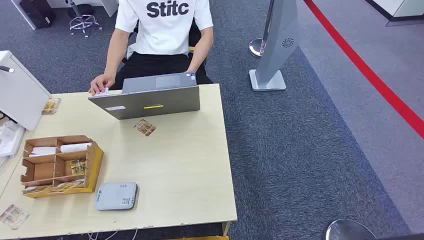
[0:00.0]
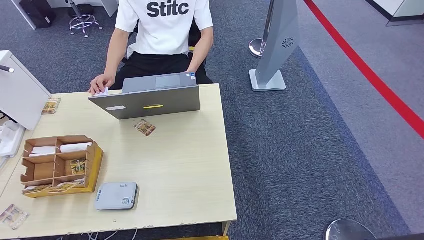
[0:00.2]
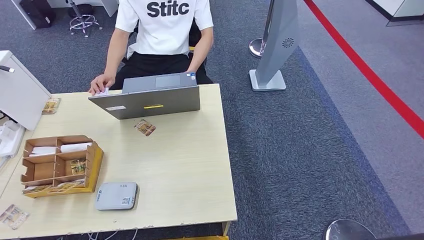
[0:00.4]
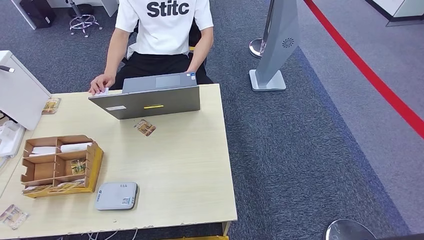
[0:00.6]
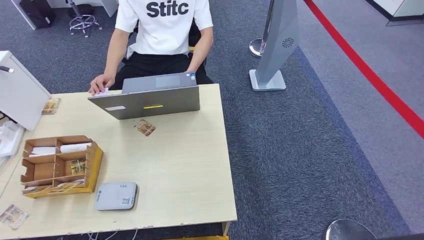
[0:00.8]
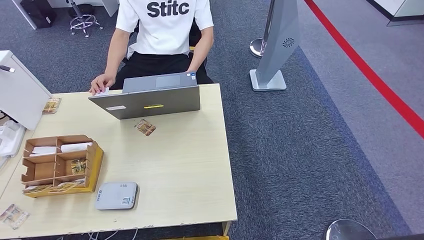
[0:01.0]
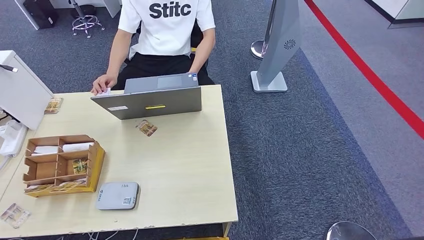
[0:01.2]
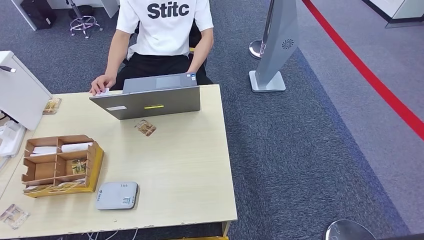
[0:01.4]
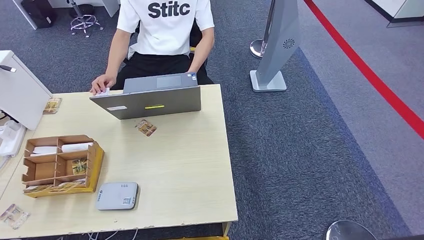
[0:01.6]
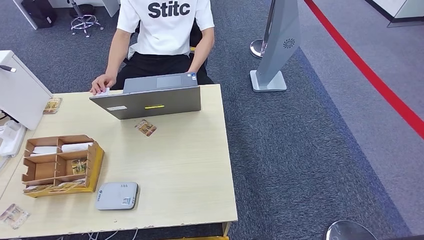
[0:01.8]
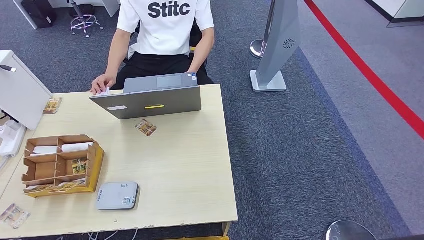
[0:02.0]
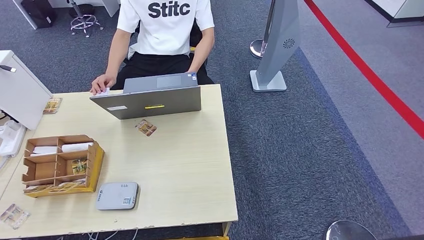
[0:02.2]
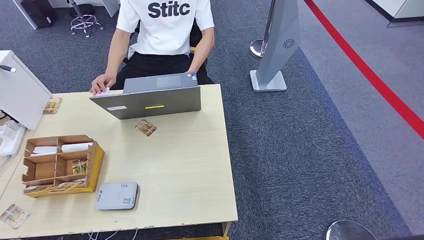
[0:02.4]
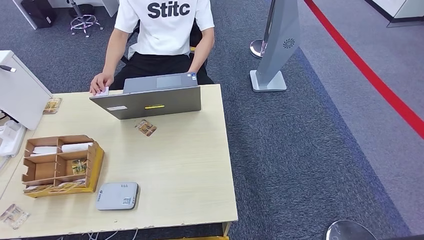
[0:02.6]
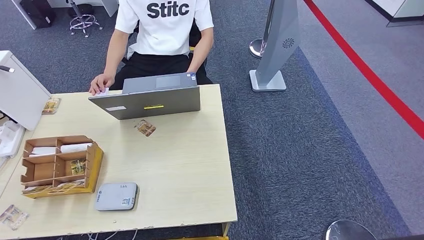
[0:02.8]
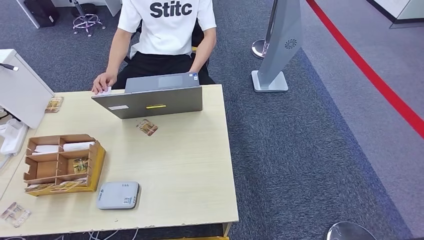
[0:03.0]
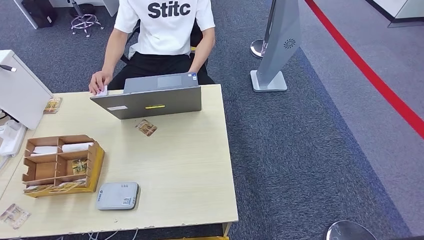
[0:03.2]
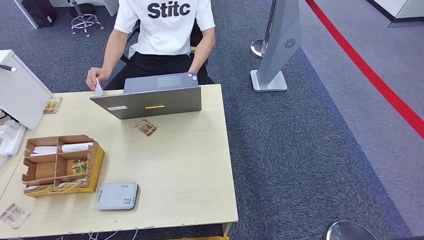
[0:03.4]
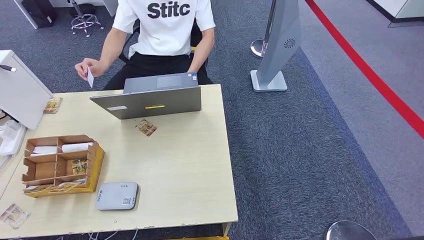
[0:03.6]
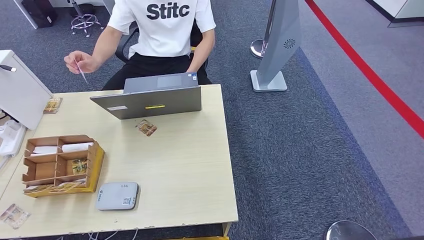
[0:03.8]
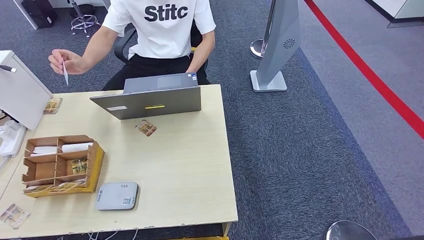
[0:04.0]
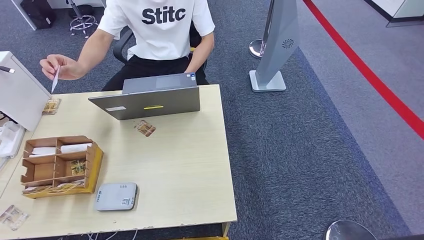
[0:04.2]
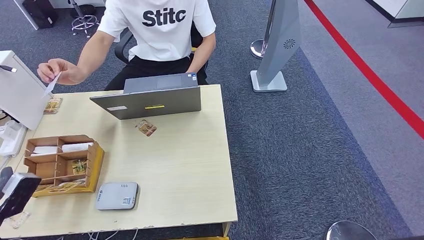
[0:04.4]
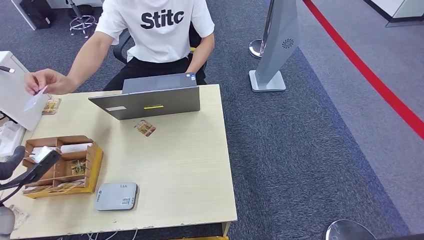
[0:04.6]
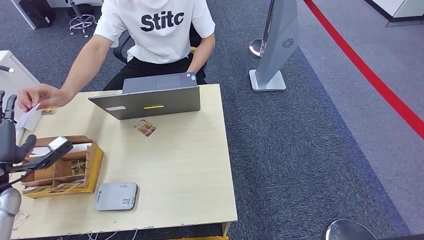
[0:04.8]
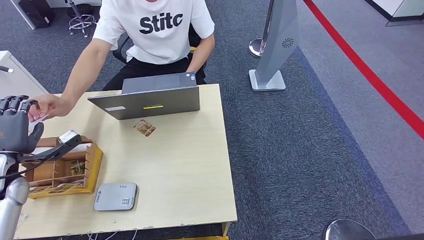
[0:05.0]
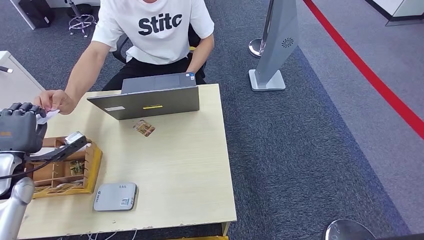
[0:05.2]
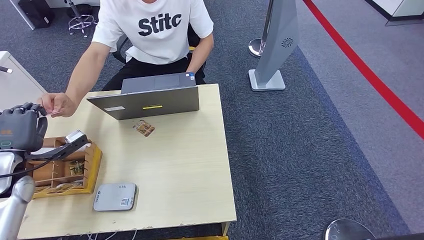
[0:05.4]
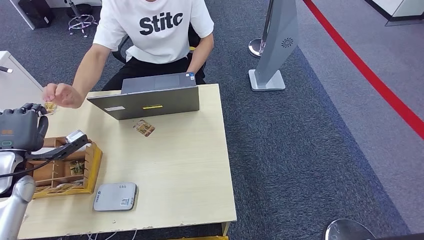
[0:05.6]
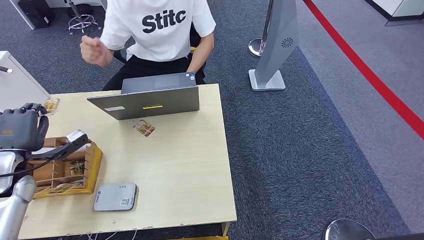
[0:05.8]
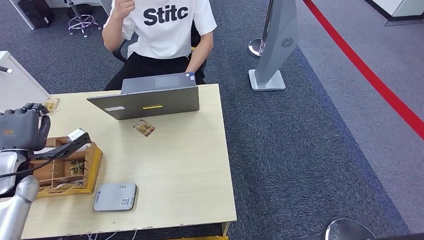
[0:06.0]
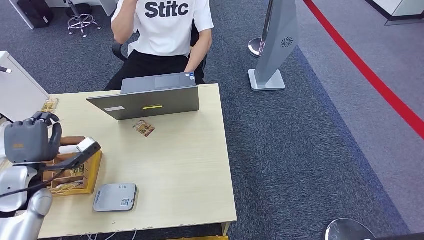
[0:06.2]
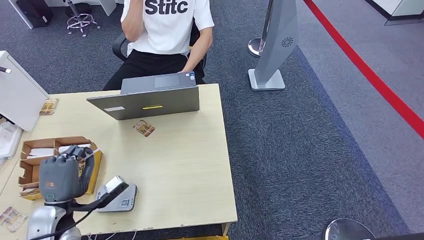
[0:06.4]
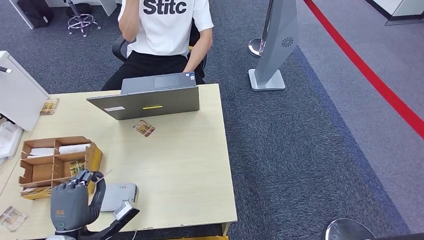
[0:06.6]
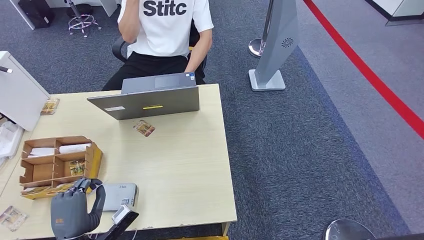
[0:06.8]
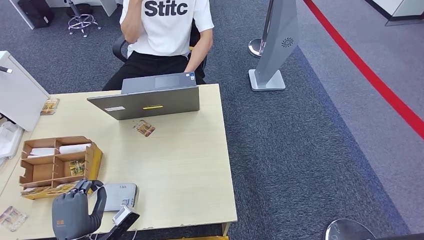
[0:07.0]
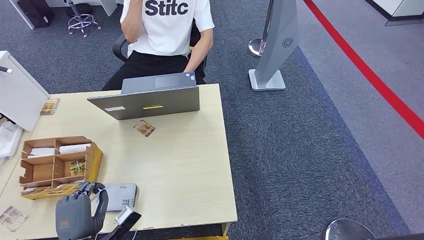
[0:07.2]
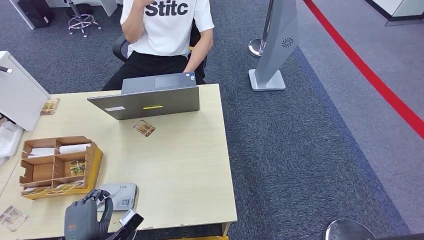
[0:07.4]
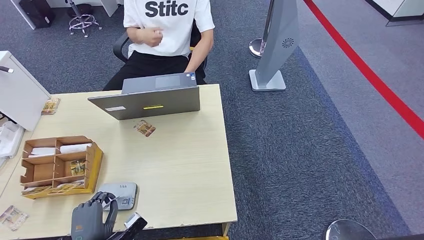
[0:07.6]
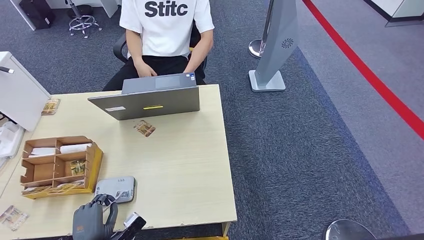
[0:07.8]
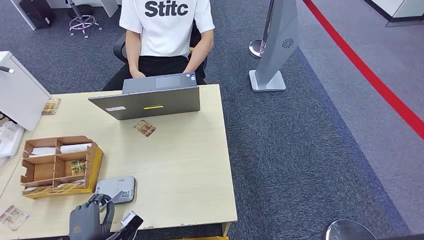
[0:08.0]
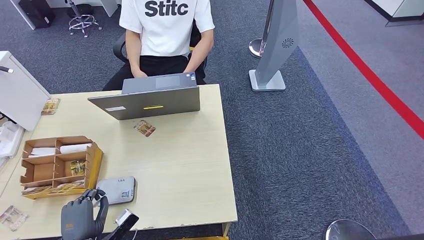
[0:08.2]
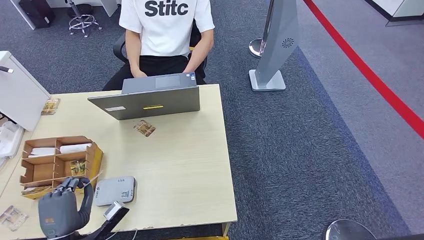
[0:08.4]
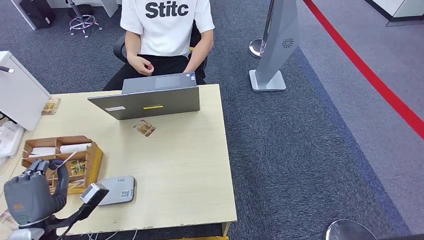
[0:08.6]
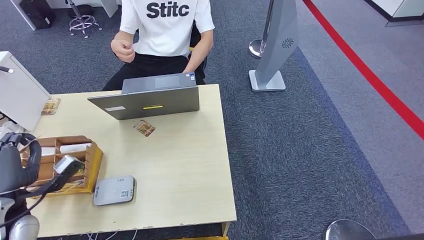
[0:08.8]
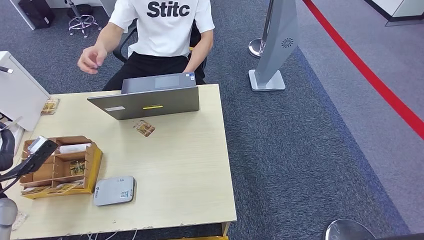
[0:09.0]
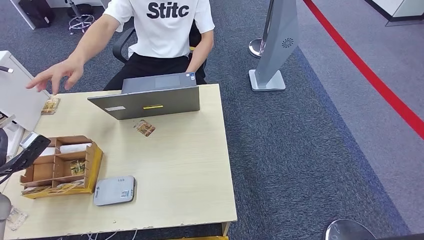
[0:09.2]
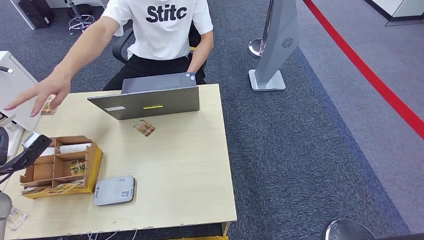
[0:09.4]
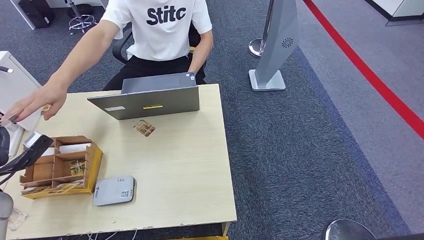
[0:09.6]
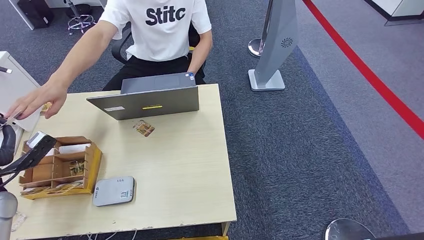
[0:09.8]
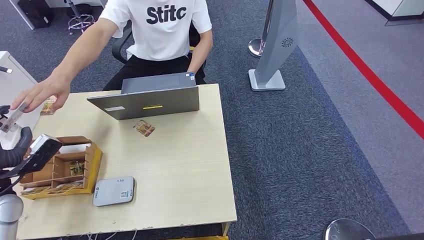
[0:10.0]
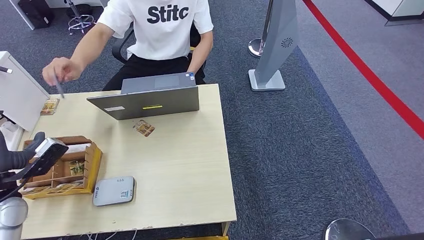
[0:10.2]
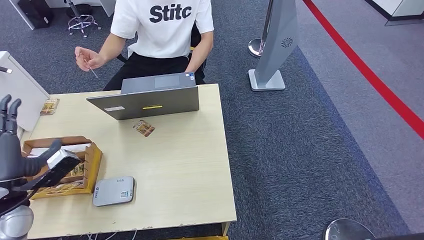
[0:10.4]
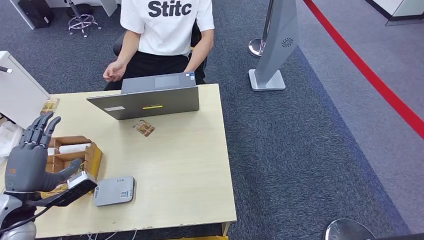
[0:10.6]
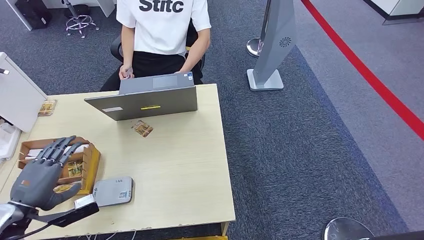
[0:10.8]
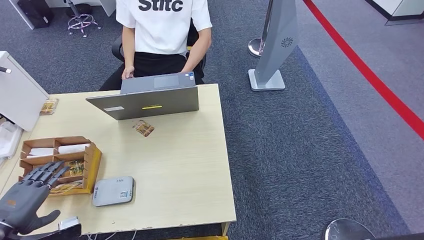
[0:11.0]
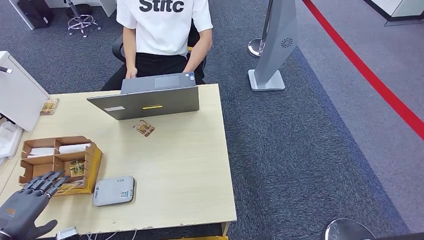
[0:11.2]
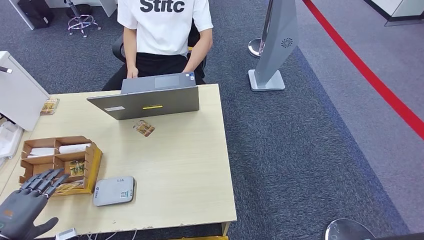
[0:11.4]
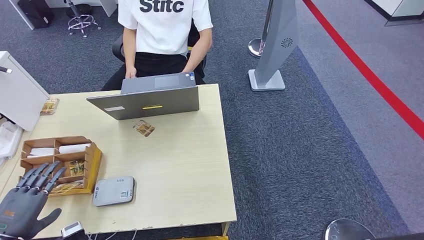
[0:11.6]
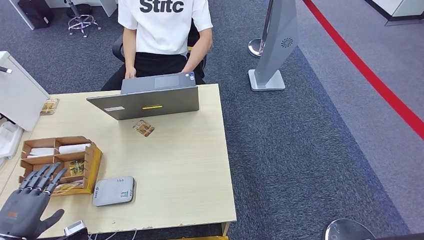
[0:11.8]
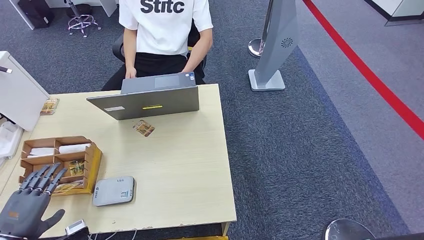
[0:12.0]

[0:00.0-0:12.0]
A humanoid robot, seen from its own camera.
Step, 0:00.0 to 0:06.6: Take the ID card from the person's hand.
Step, 0:07.0 to 0:07.8: Place the ID card on the card reader.
Step, 0:08.0 to 0:10.0: Hand the ID card to the person.
0:01.6 to 0:03.0: The left hand goes some 15 cm to the left and upward.
0:03.0 to 0:04.4: The left hand shifts roughly 30 cm upward and forward.
0:04.4 to 0:06.0: The left hand goes roughly 15 cm forward.
0:06.0 to 0:07.6: The left hand travels backward, downward and to the right by roughly 30 cm.
0:07.6 to 0:09.0: The left hand is displaced upward, to the left and forward by about 25 cm.
0:09.0 to 0:10.4: The left hand moves to the right, roughly 5 cm.
0:10.4 to 0:12.0: The left hand is displaced backward and downward by approximately 10 cm.

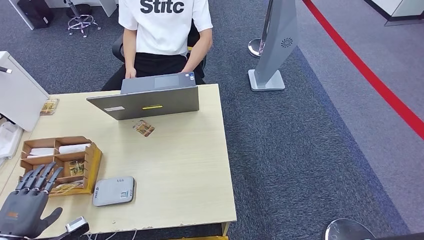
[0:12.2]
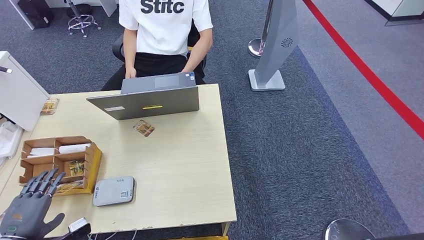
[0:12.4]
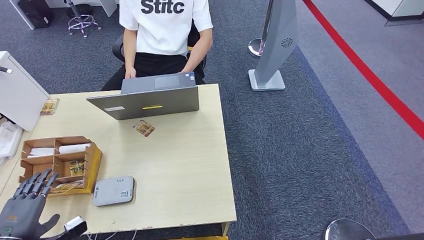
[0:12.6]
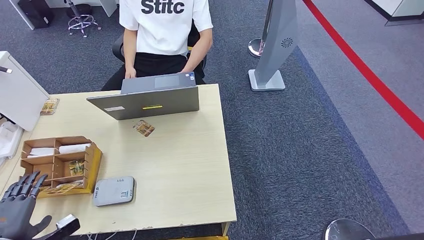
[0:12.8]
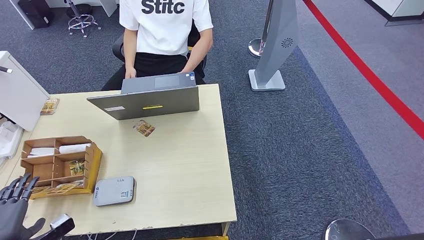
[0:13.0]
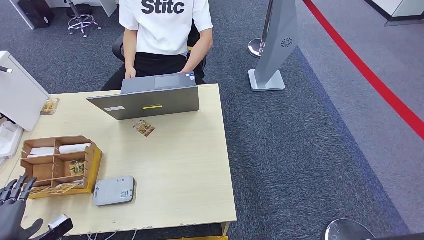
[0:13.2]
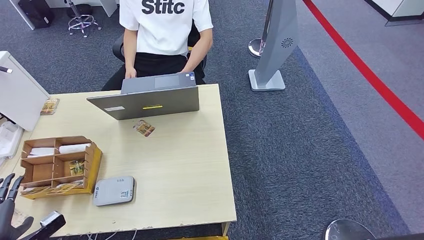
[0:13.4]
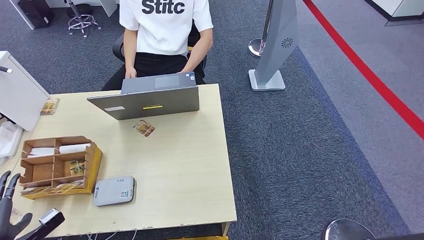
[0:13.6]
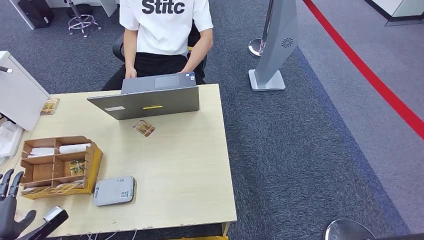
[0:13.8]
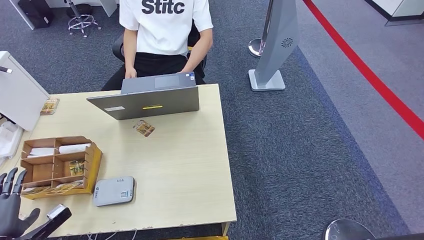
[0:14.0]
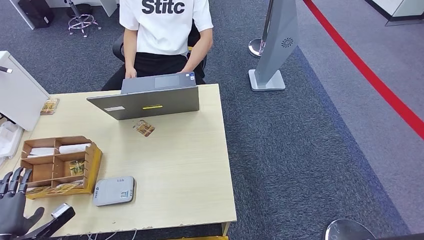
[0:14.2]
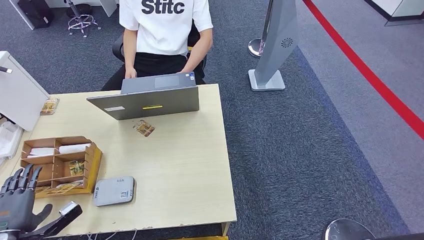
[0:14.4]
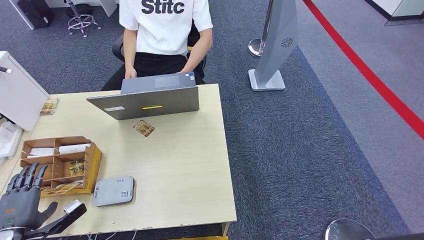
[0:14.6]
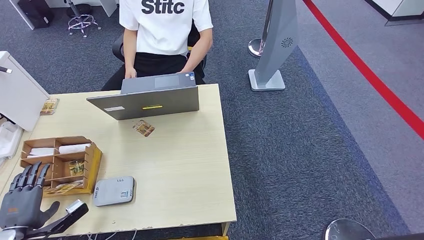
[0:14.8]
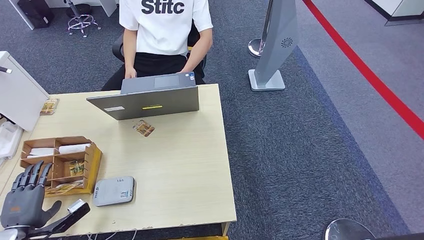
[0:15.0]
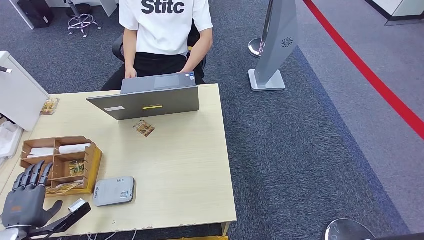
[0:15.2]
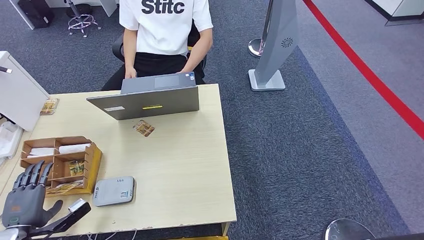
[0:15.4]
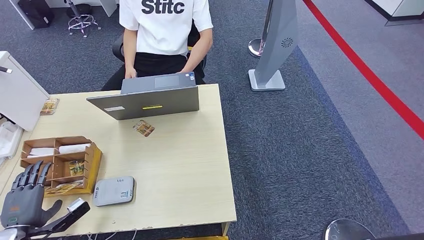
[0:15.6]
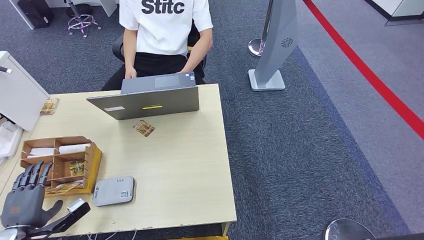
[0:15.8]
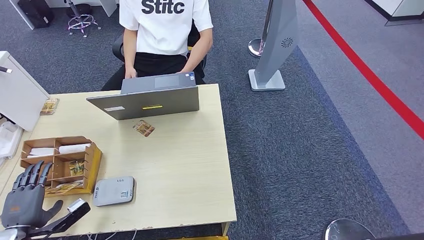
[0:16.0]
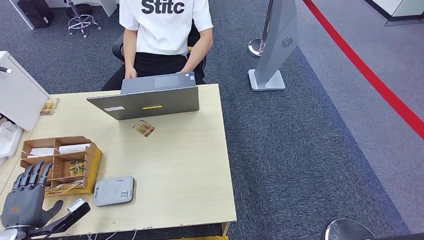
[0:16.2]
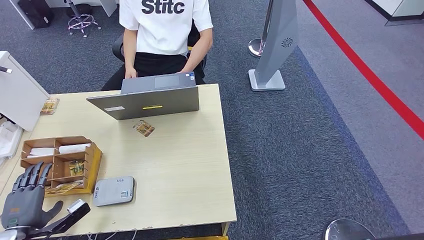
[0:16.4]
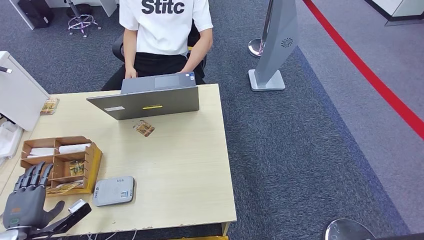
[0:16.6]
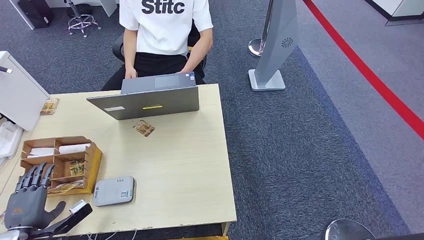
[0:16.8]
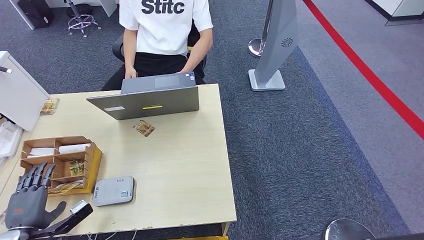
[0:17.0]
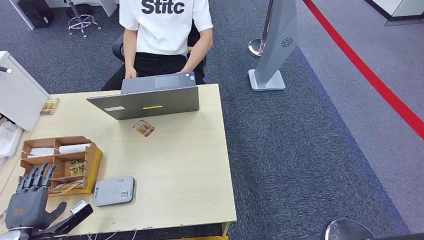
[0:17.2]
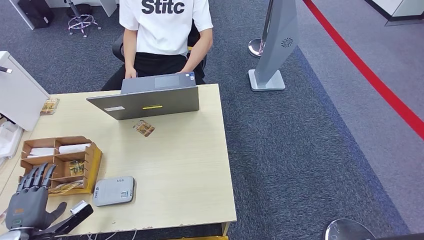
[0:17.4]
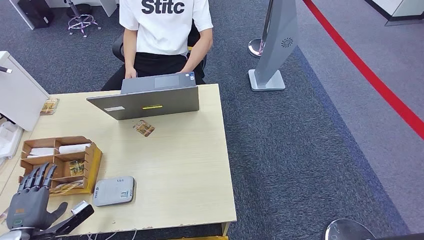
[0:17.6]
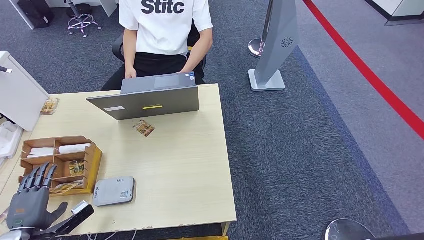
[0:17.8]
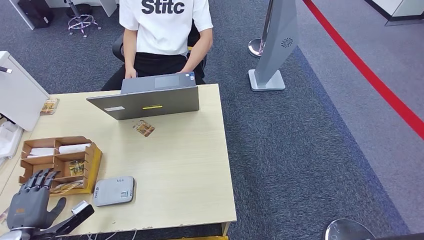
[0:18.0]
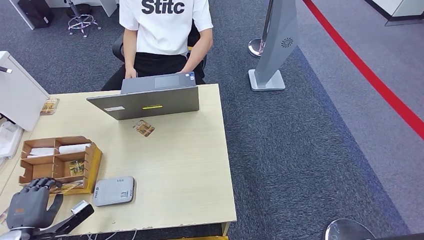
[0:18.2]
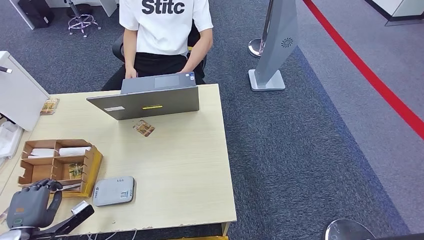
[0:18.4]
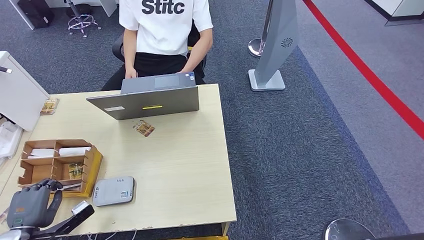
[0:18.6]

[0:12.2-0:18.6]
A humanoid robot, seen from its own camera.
0:12.2 to 0:13.8: The left hand goes about 5 cm to the left.
0:13.8 to 0:15.4: The left hand moves about 5 cm.
0:15.4 to 0:18.6: Both hands stay about where they are.
